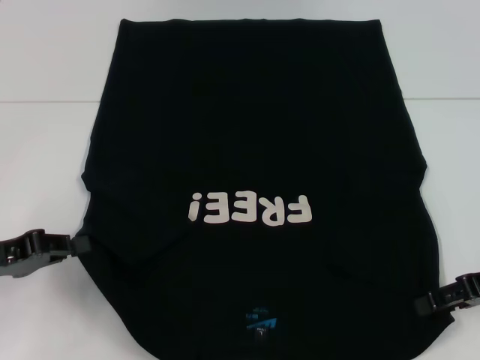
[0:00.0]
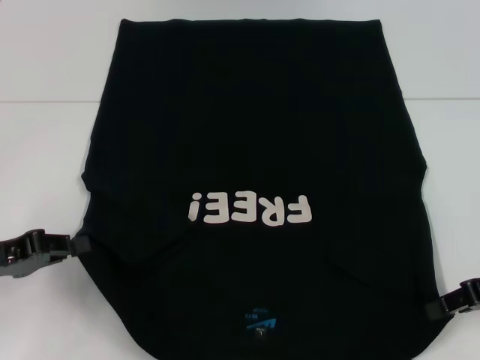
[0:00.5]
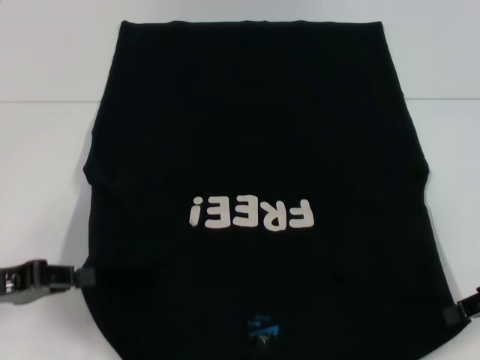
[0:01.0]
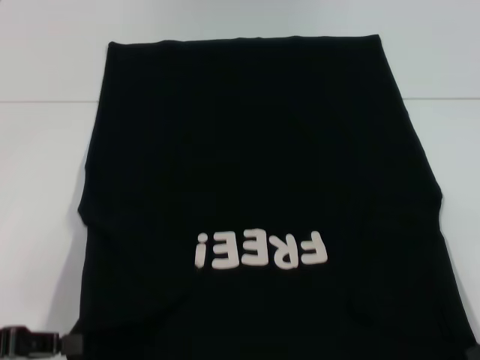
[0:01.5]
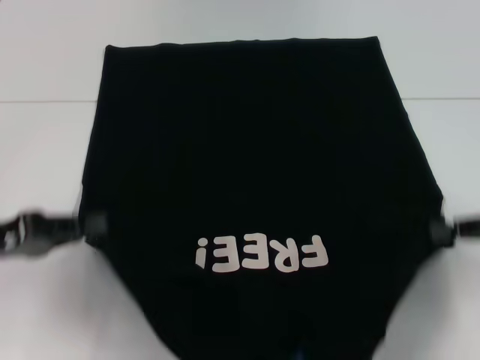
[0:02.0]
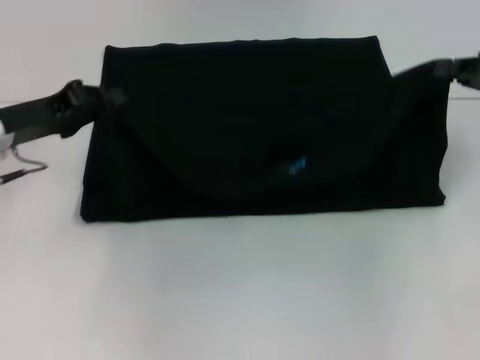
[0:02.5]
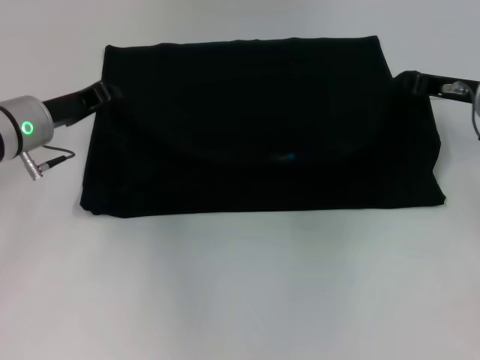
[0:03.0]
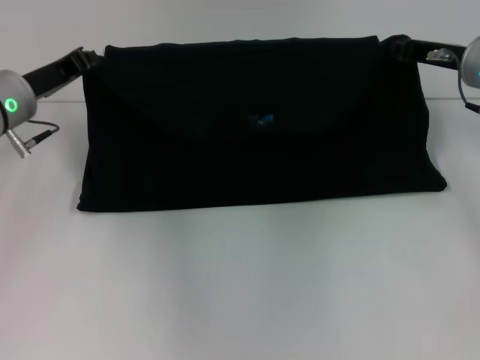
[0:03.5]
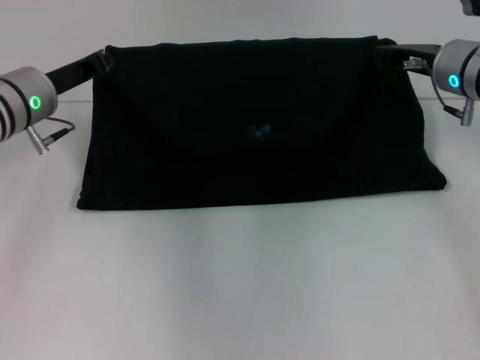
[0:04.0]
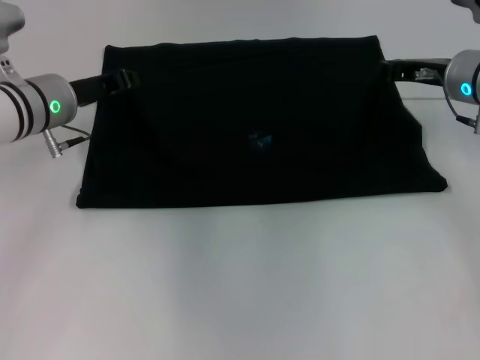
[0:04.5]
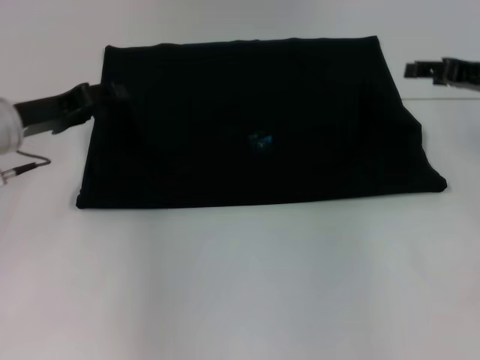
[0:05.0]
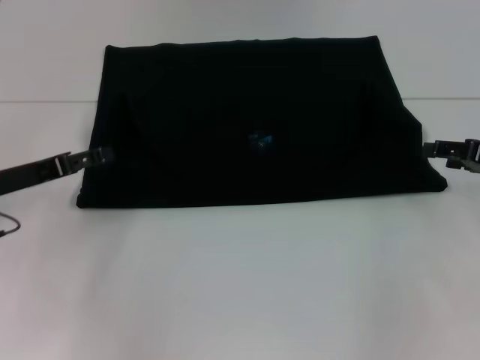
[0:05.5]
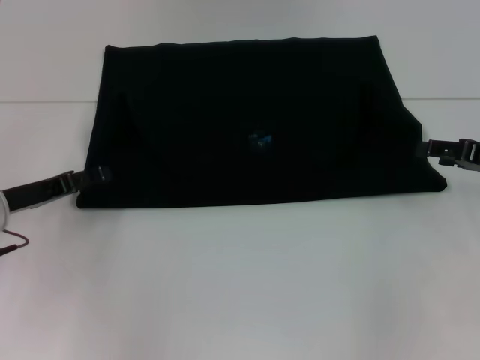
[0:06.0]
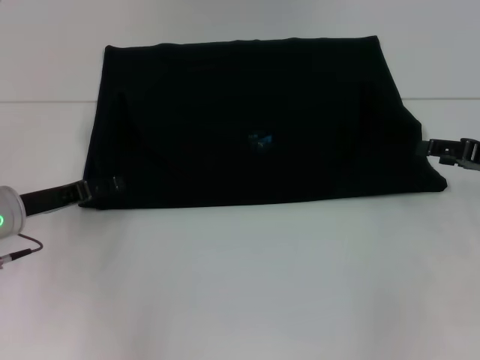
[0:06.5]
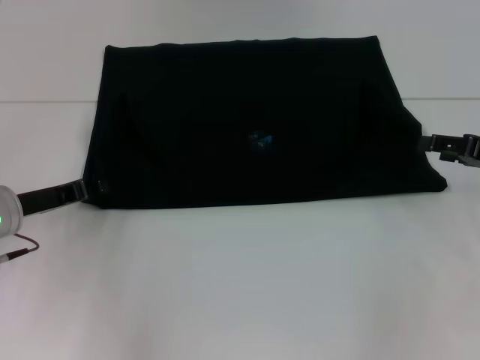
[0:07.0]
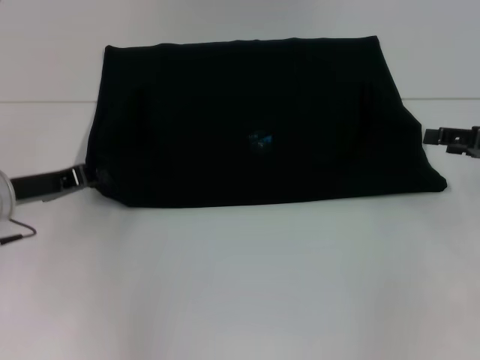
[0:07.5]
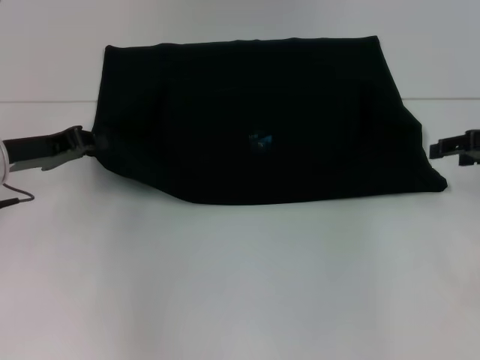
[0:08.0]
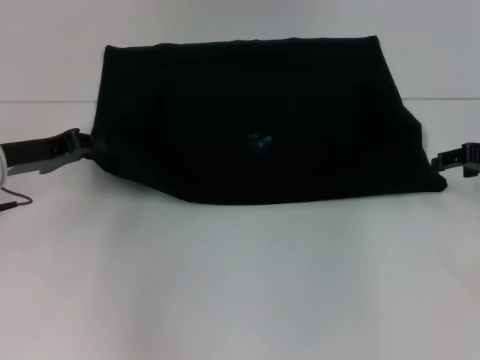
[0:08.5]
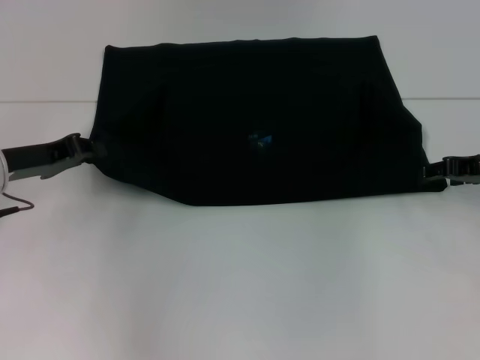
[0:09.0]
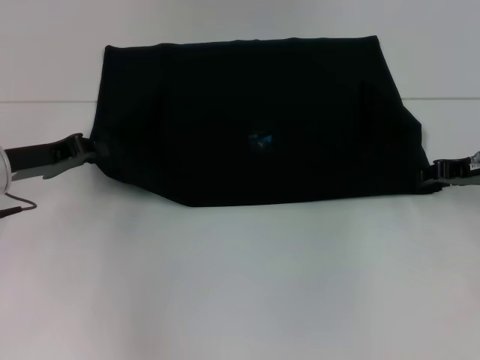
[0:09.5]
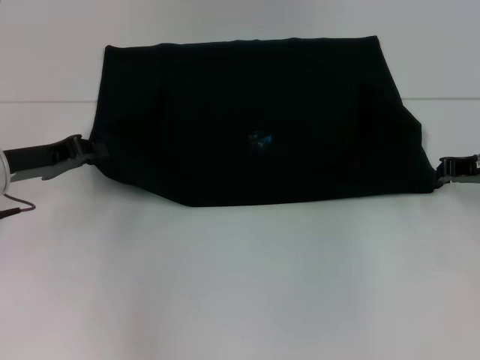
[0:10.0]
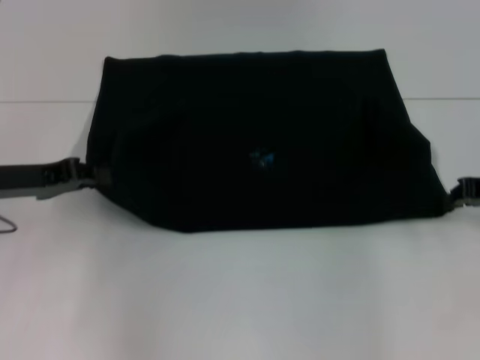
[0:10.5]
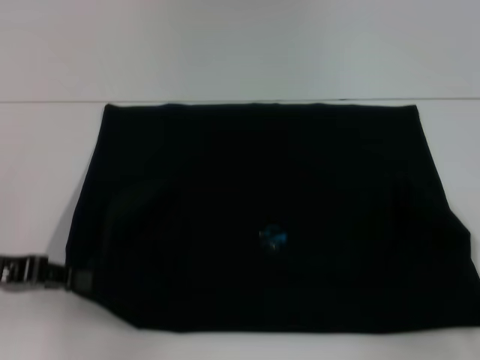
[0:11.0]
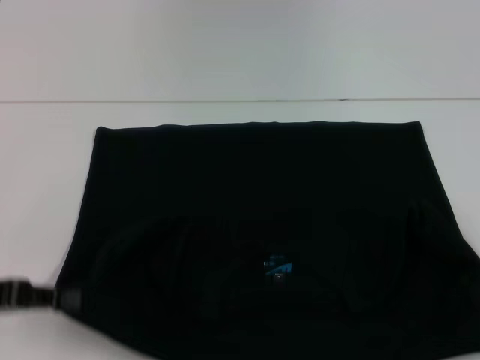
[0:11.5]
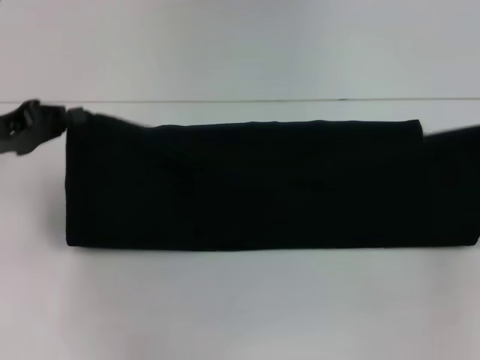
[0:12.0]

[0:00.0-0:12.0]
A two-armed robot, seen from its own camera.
Step, 1.0 to 4.5 s: Fold the clothes with your left hand.
Step, 1.0 to 4.5 s: Fold the clothes with your right hand.
Step, 5.0 to 11.0 s: Pull the clothes with your left hand.
Step, 5.0 to 11.0 s: Pull the clothes with your right hand.
0.0 to 2.0 s: The right gripper closes up.
2.0 to 4.0 s: The left gripper travels forward and to the right by approximately 20 cm, while the right gripper heads forward and to the left, covering some 20 cm.
4.0 to 6.0 s: The left gripper heads backward, downward and to the left, covering approximately 10 cm, and opens up. The right gripper shifts approximately 15 cm to the right and backward, and opens its fingers.
6.0 to 8.0 s: The left gripper changes place by roughly 5 cm, and closes its fingers.
8.0 to 10.0 s: The right gripper closes its fingers.
10.0 to 12.0 s: The left gripper travels backward and back again, approximately 10 cm each way, while the right gripper moves to the right and backward, roughly 10 cm.

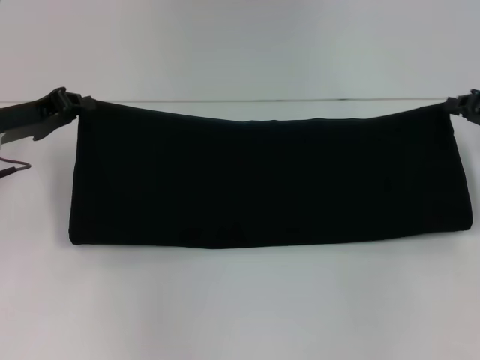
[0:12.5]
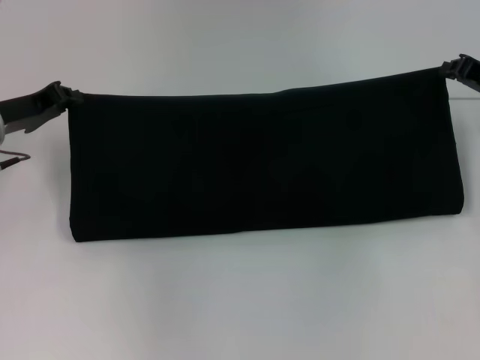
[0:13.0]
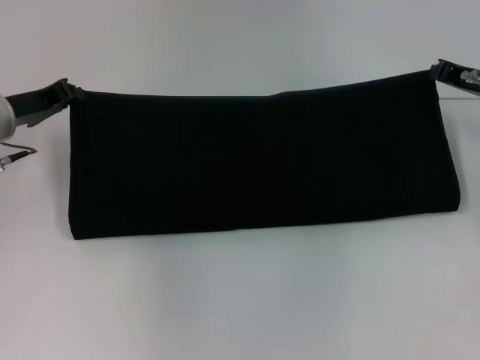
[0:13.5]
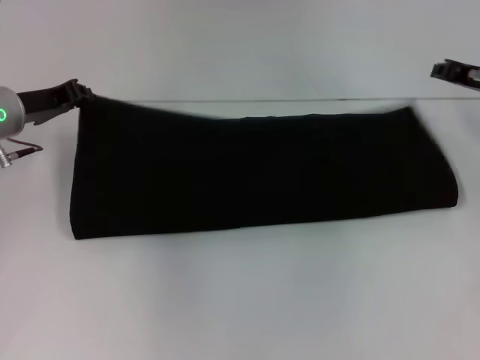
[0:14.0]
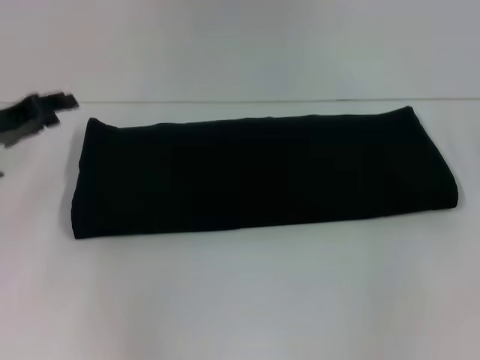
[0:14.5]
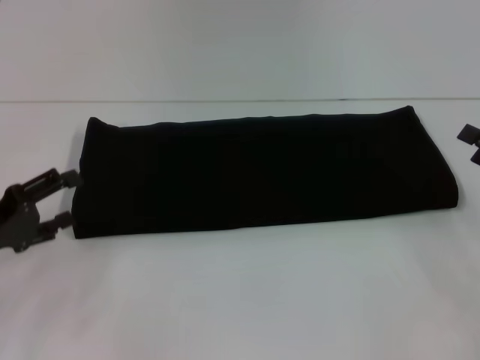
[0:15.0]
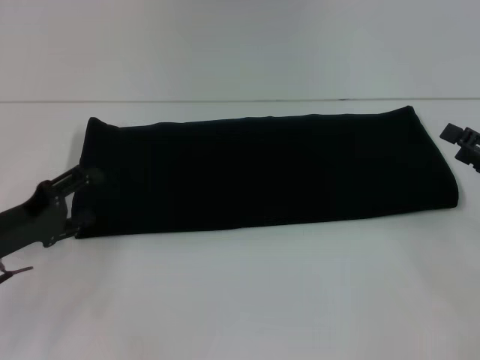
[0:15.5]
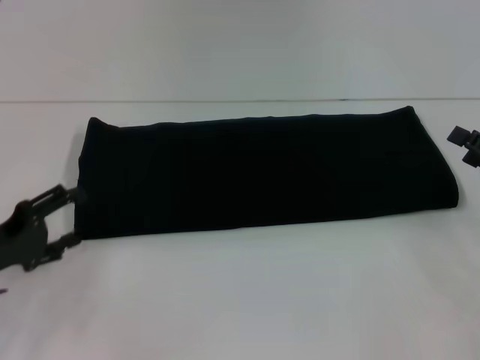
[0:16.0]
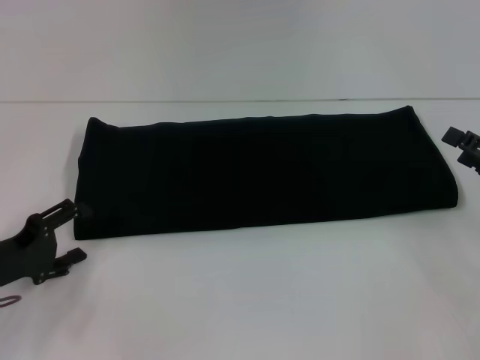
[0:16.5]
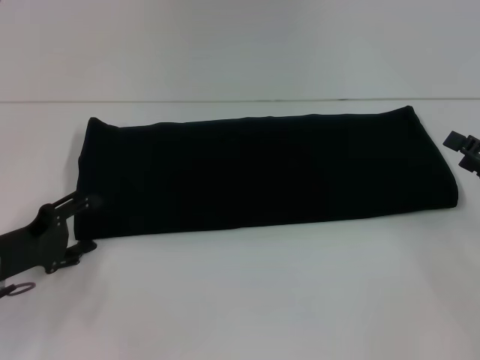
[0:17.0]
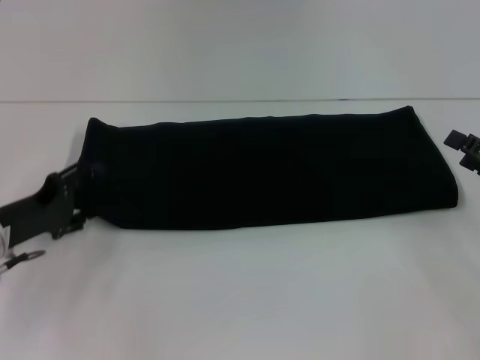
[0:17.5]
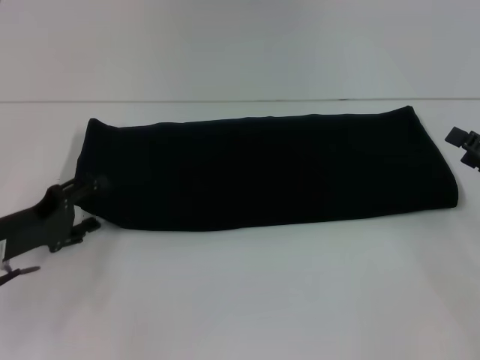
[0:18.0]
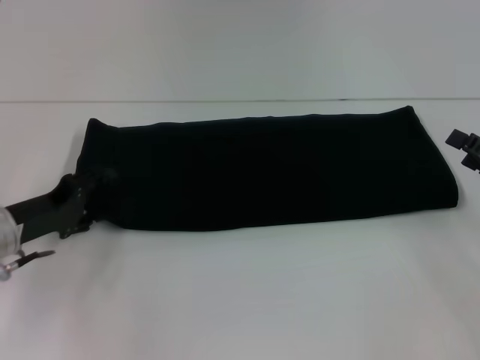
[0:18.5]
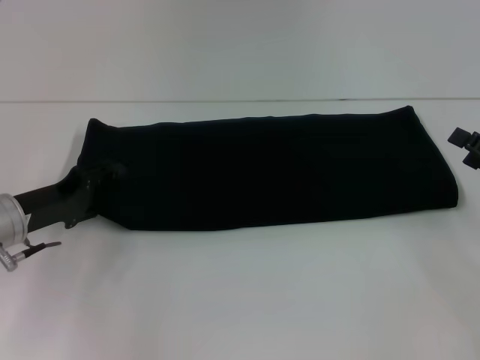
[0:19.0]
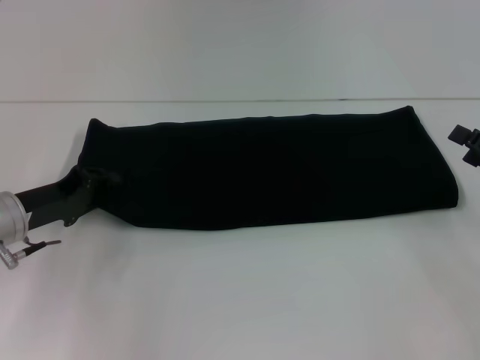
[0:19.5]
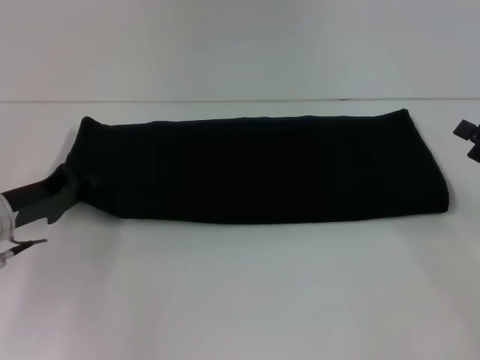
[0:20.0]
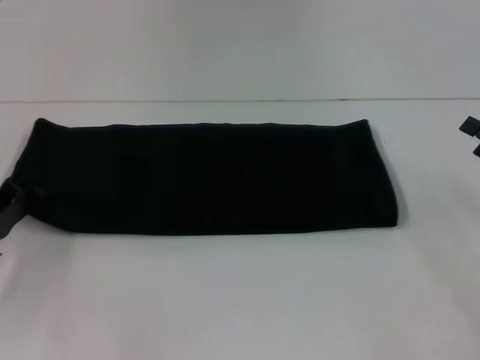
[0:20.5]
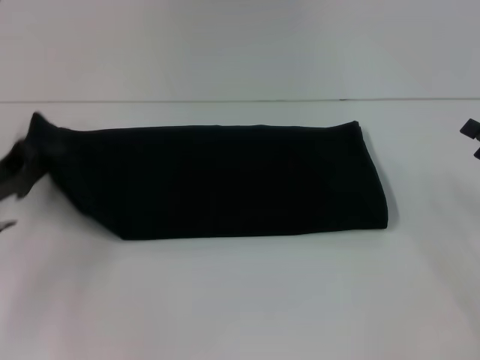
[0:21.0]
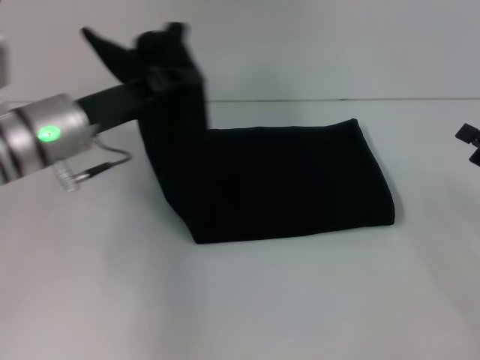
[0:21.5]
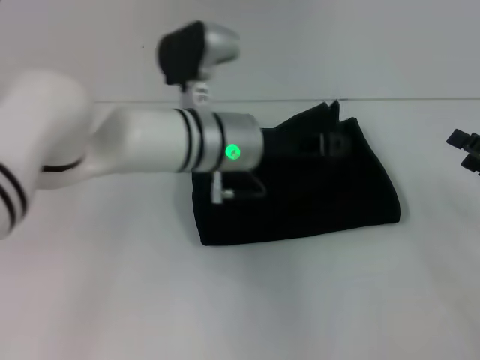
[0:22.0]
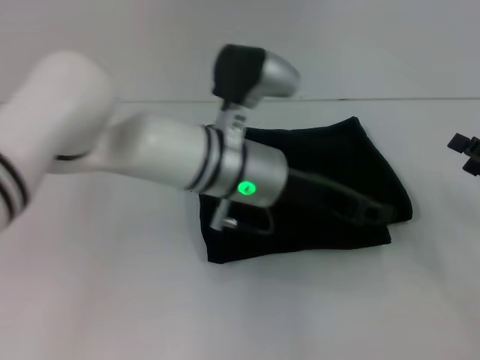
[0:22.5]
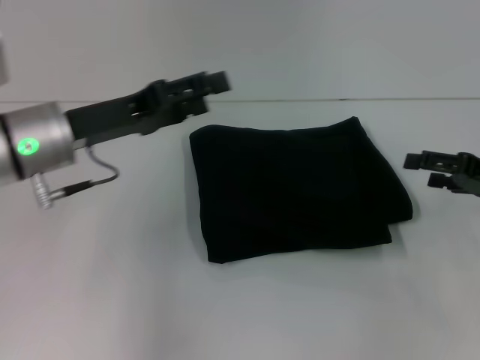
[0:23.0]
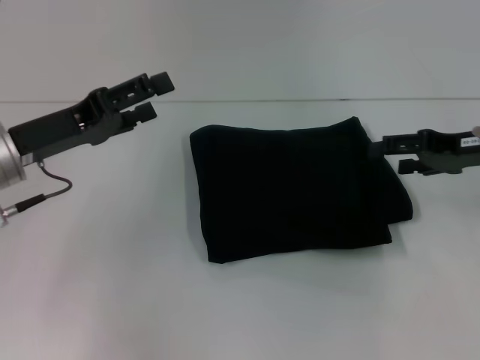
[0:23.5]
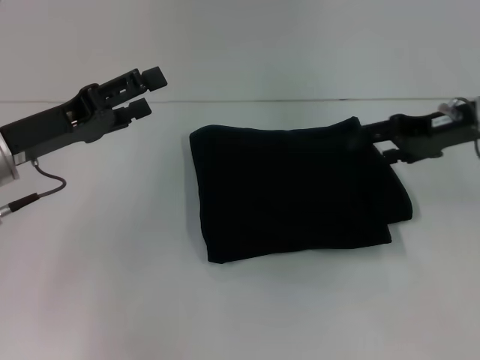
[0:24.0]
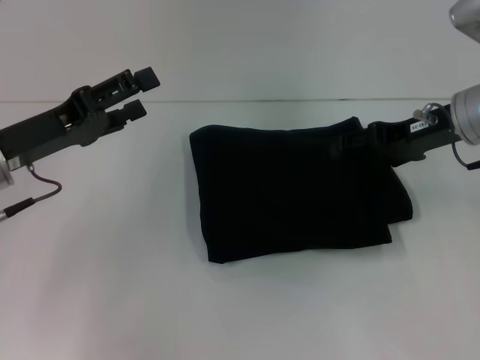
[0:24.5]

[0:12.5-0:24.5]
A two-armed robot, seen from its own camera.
Step, 12.5 to 14.0 s: Fold the clothes with your right hand.
Step, 12.5 to 22.0 s: Fold the clothes with your left hand.
12.5 to 14.5 s: The right gripper changes place by approximately 5 cm, and opens its fingers.
14.5 to 16.5 s: The grippers both shift backward and downward by about 15 cm. The right gripper opens its fingers; the left gripper opens.
16.5 to 18.5 s: The left gripper travels forward by about 5 cm.
18.5 to 20.5 s: The left gripper closes.
20.5 to 22.5 s: The left gripper travels to the right by approximately 30 cm.
22.5 to 24.5 s: The right gripper goes approximately 20 cm to the left, forward and upward, while the left gripper is displaced to the left by approximately 25 cm, and opens.

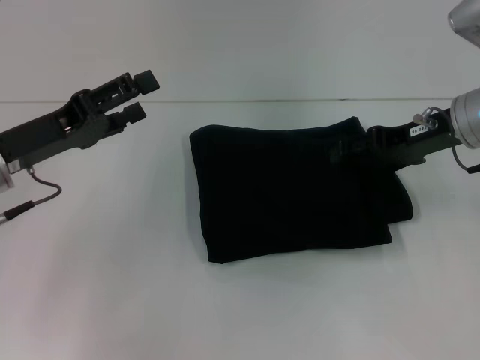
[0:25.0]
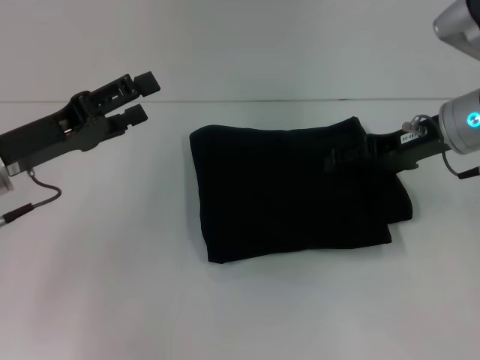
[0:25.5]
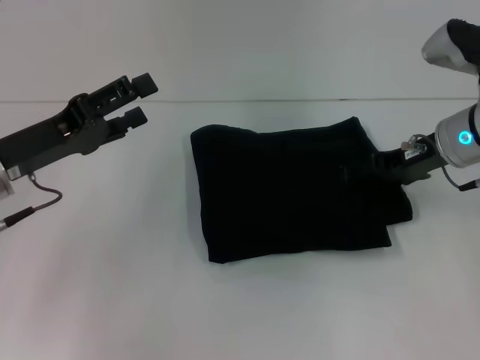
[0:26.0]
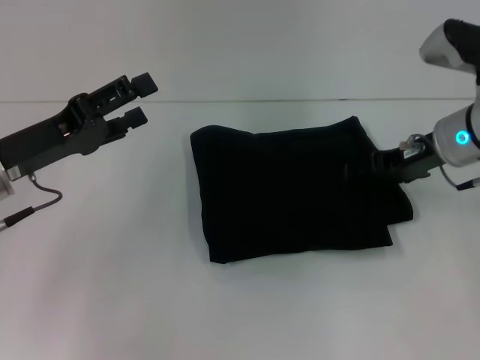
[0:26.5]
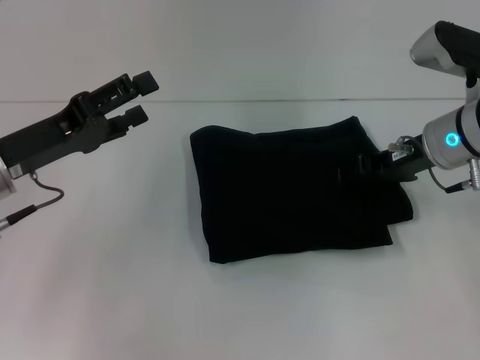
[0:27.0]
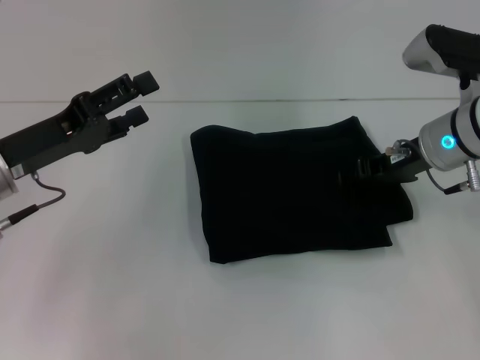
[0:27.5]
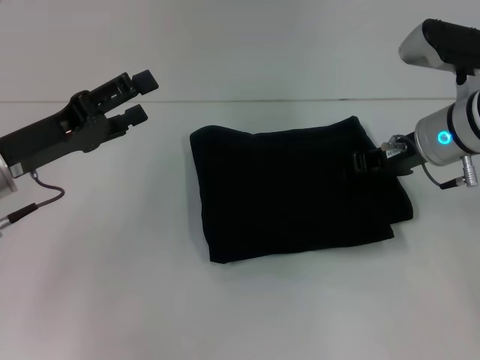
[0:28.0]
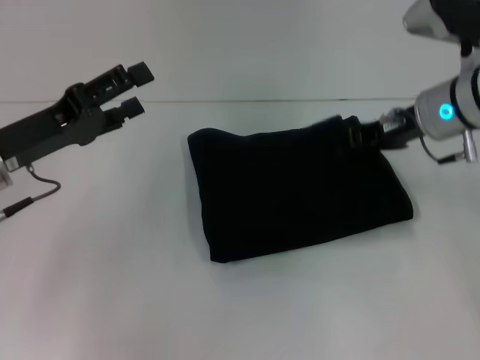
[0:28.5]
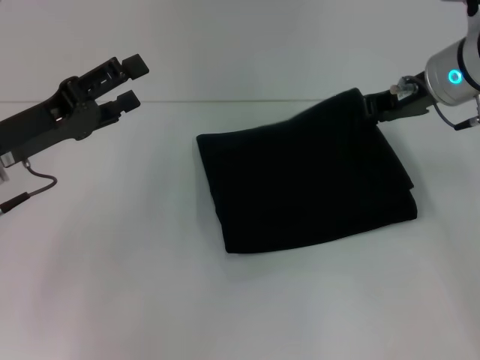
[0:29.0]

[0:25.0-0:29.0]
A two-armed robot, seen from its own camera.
25.0 to 27.0 s: There are only small adjustments of the grippers.
27.0 to 29.0 s: The right gripper travels upward by approximately 5 cm, and closes its fingers.
